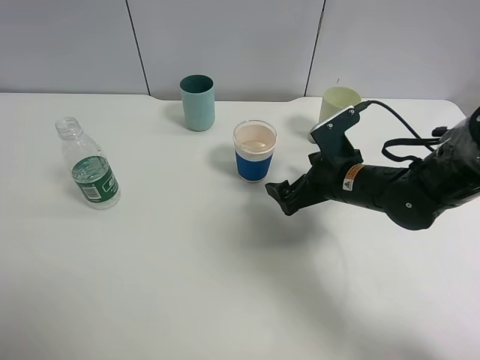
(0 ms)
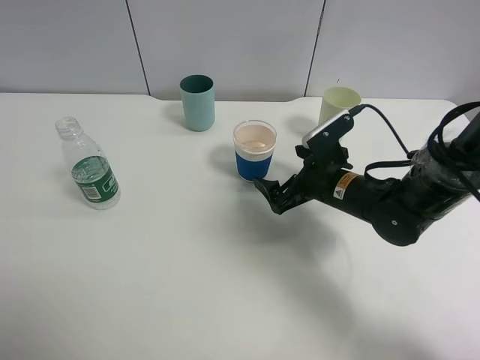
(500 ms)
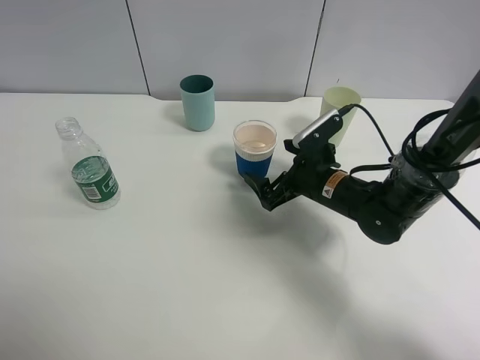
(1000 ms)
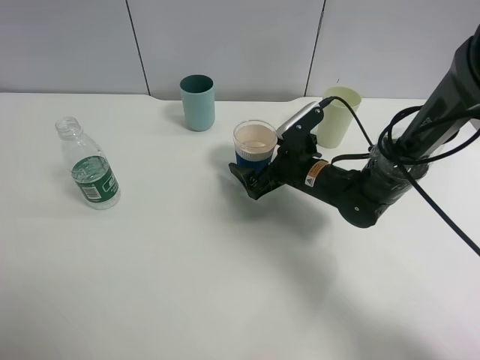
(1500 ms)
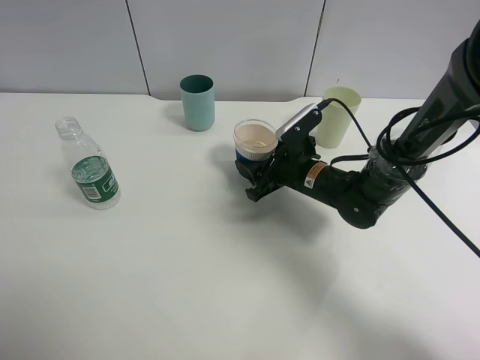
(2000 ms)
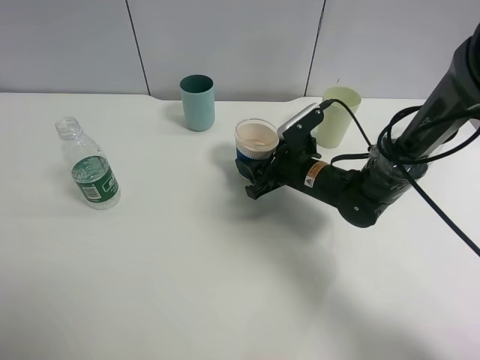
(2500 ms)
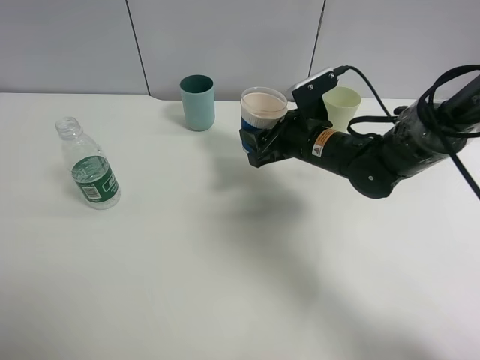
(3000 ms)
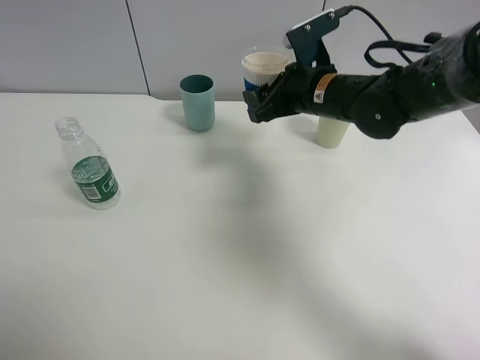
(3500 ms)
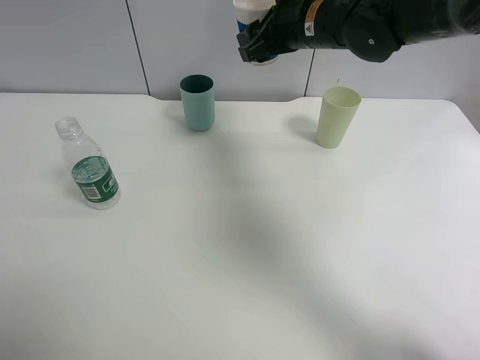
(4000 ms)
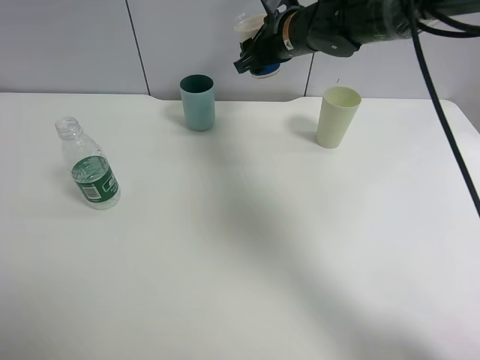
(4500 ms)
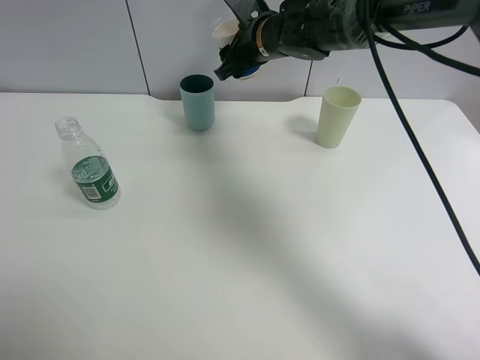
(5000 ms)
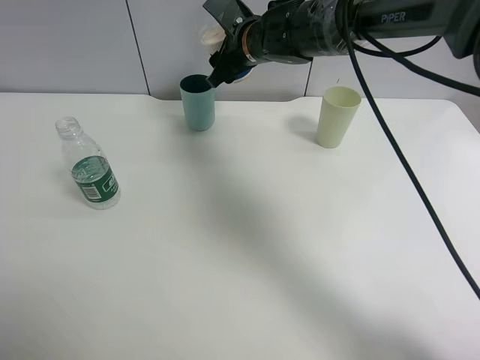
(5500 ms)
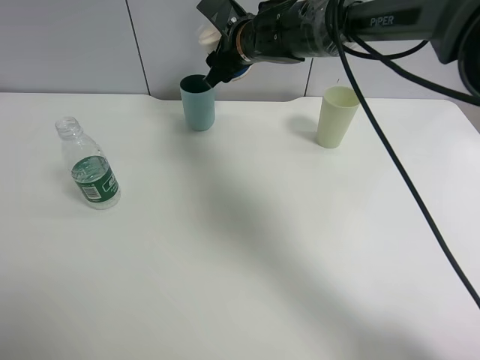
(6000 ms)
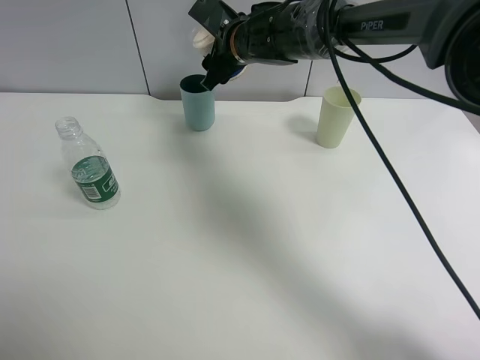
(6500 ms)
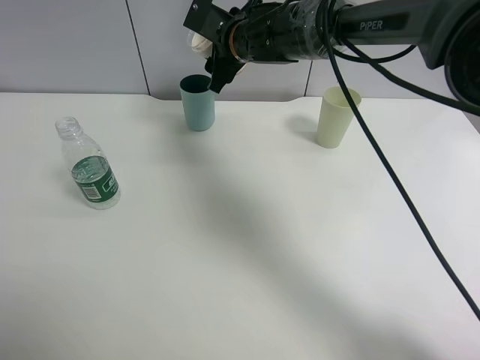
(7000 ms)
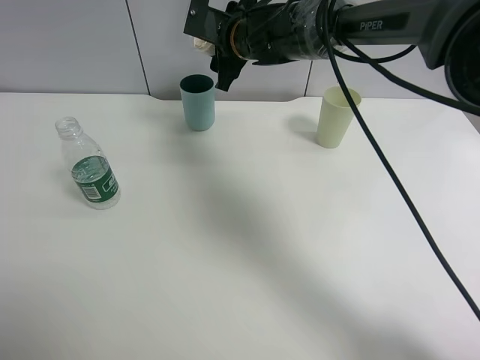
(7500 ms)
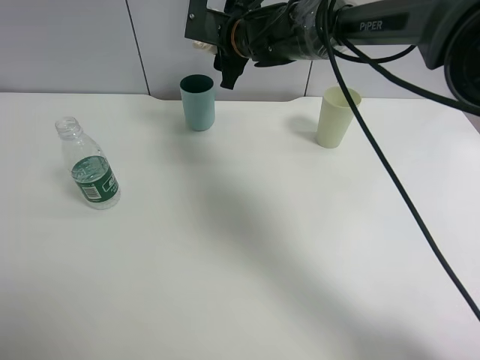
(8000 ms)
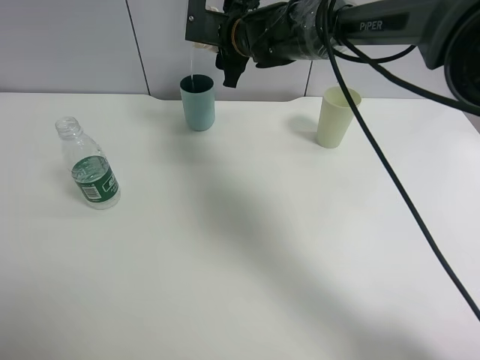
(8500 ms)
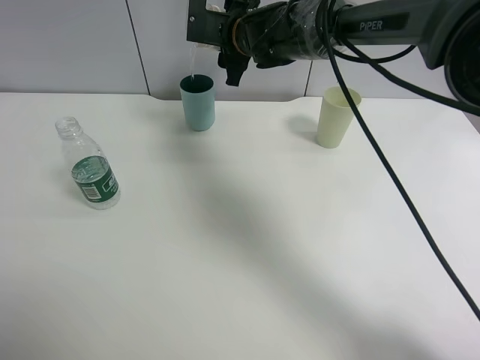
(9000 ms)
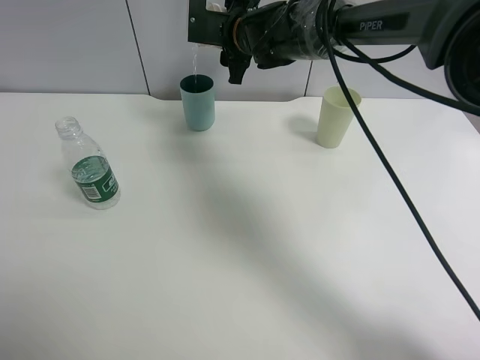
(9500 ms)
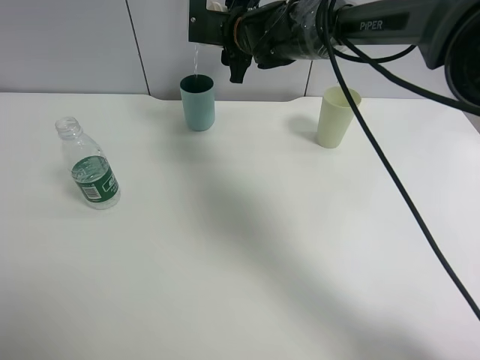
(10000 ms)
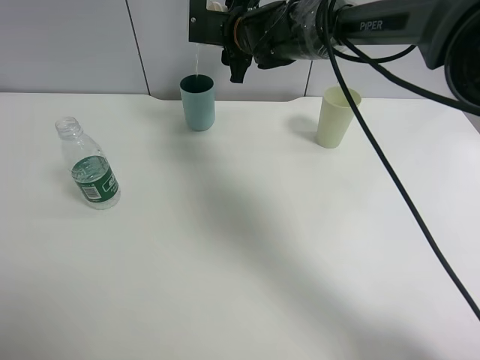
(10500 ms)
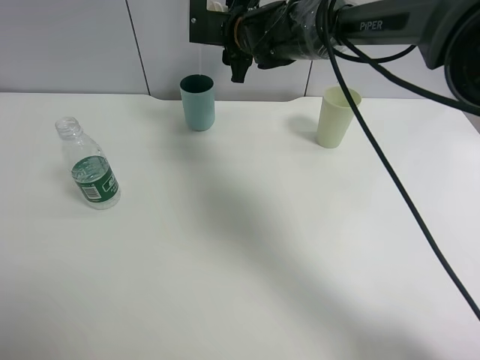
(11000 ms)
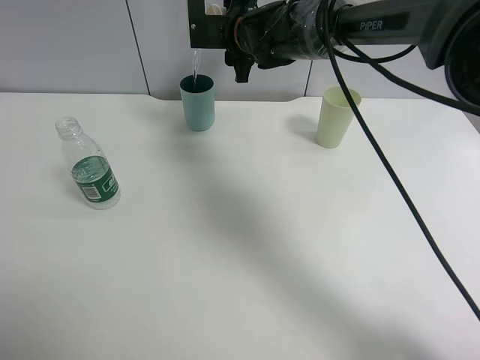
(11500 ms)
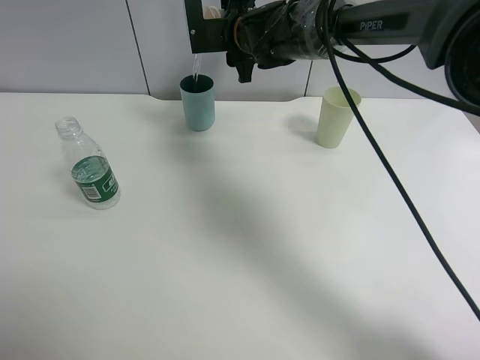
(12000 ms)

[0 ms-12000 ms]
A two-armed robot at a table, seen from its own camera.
Task of the whole recording: use a clamp to hold the bottle of the drink, pour the beverage into a random cup, then clamp the cup containing the drink and pour the drink into another random cup.
Step, 0 ms to 2500 ms: Pick up the paper cup with right gripper.
0 ms to 2000 ms: The right gripper shifts by about 5 cm, and closes up.
2000 ms to 4000 ms: The right gripper shifts about 20 cm upward.
4000 ms to 6000 ms: The right gripper travels to the left by some 10 cm.
8000 ms to 12000 ms: There are only small adjustments of the grippers.

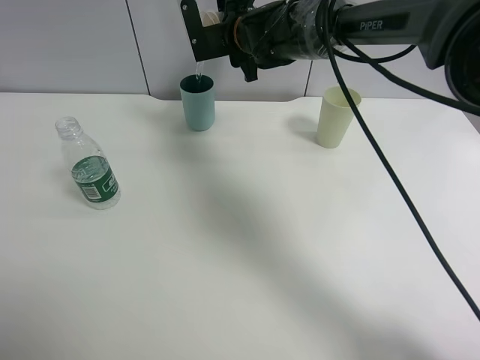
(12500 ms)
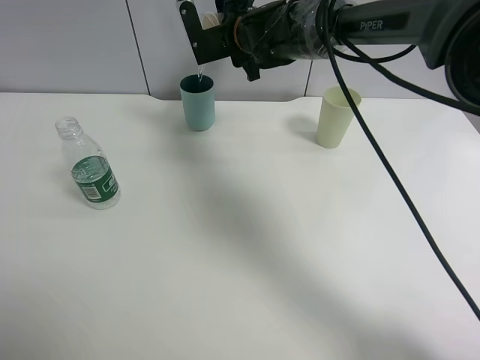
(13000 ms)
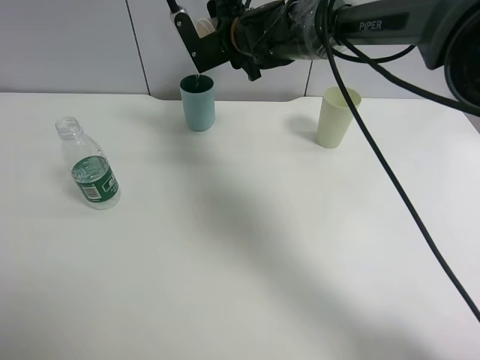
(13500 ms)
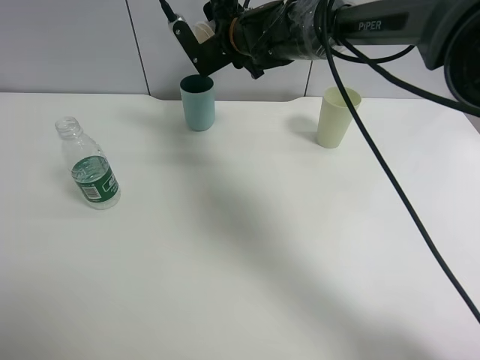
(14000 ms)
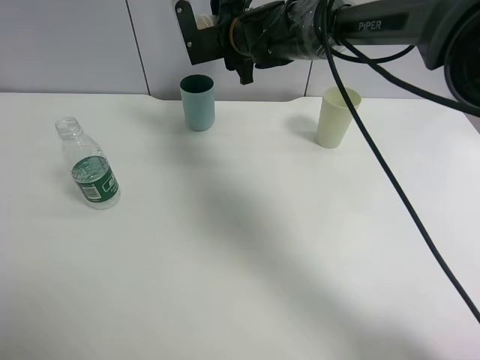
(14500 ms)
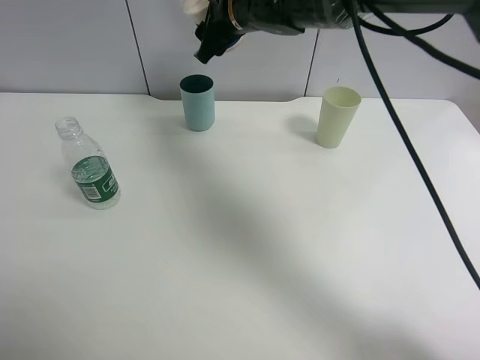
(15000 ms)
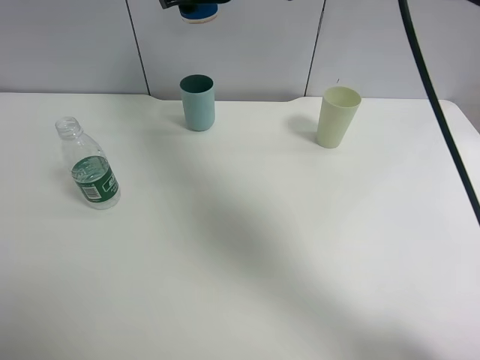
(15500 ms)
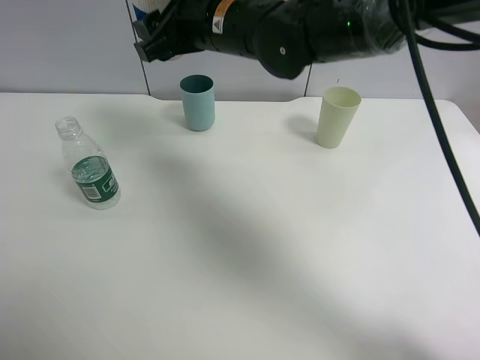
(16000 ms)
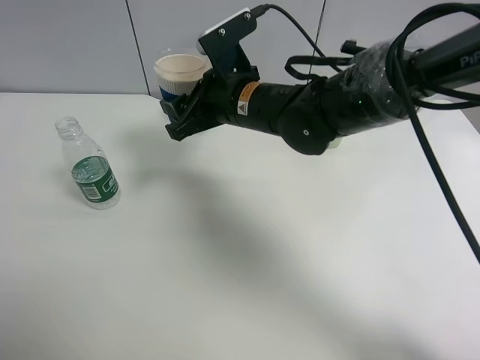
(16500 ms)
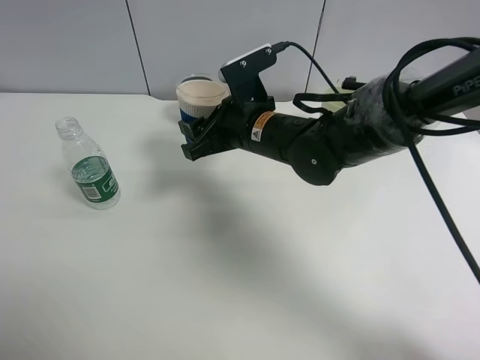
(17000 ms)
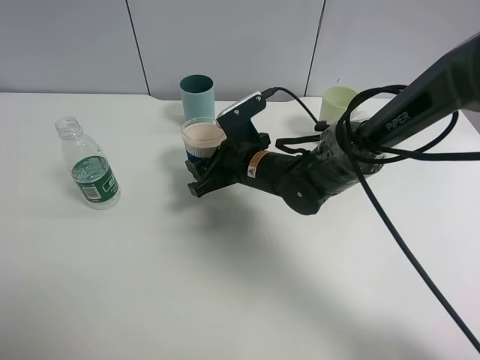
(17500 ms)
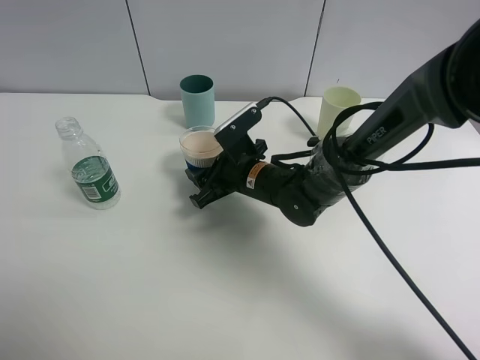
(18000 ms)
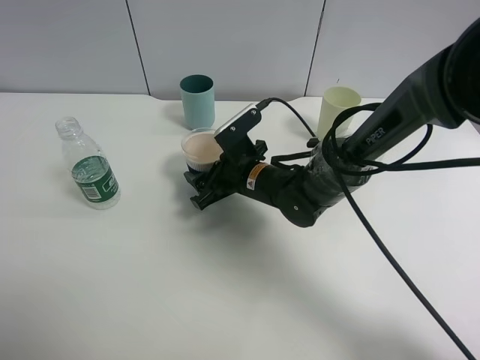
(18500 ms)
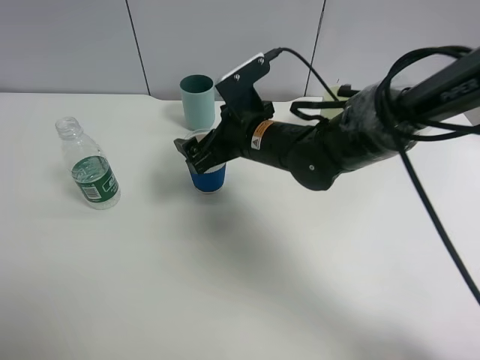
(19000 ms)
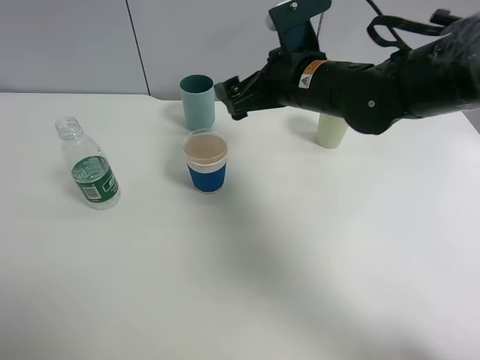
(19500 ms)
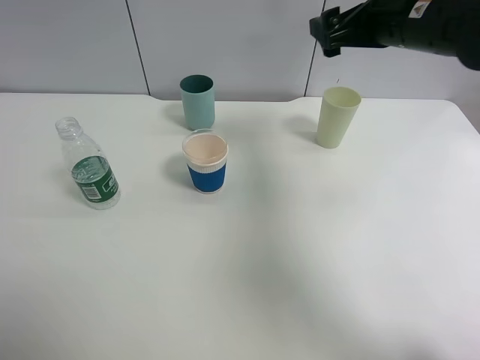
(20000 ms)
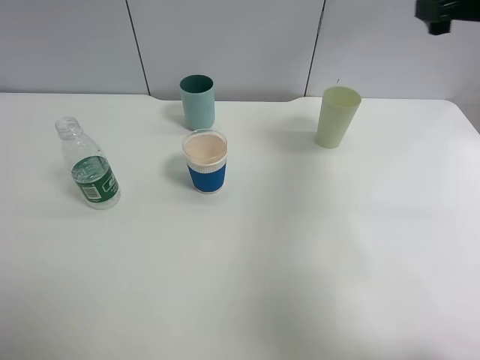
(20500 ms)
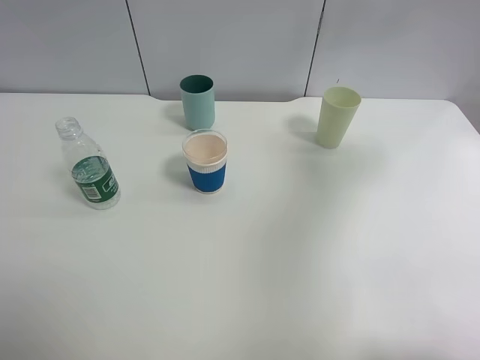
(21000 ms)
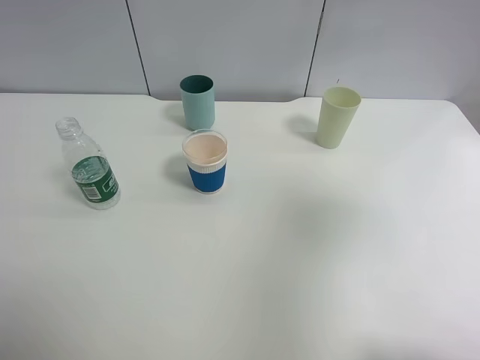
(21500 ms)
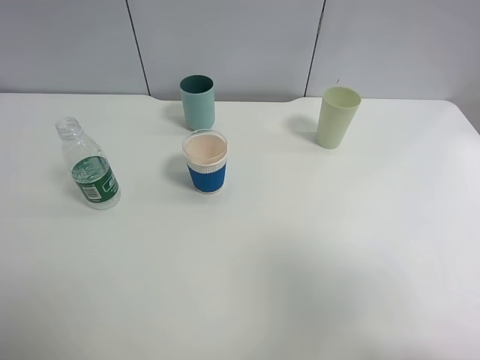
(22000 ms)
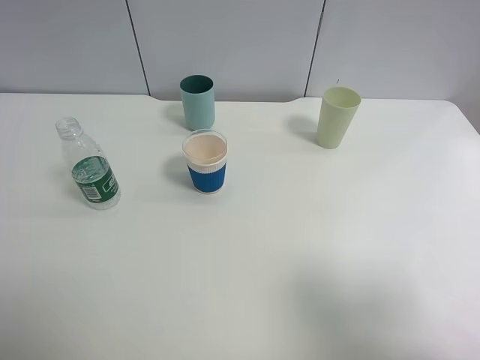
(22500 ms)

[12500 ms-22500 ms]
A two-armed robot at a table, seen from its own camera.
Task of the whole recording: use a clamp to hold the bottle of the drink, pour the beverage into a random cup, then clamp the cup containing the drink and pour the drink into another random cup.
Step, 12500 ms to 14500 ms: Pour water into the blue plastic cup with right gripper.
Step, 15000 ms to 18500 ms: Place the paper cup on the table with right gripper.
12500 ms to 14500 ms: There are only small adjustments of the grippers.
14500 ms to 16500 ms: The right gripper heads backward, covering about 15 cm.
16500 ms to 18500 ms: The right gripper travels downward by roughly 10 cm, and opens its fingers.
18500 ms to 20500 ms: The right gripper shifts approximately 40 cm upward and to the right, and opens its fingers.
20500 ms to 22500 ms: The right gripper is displaced backward by roughly 30 cm.

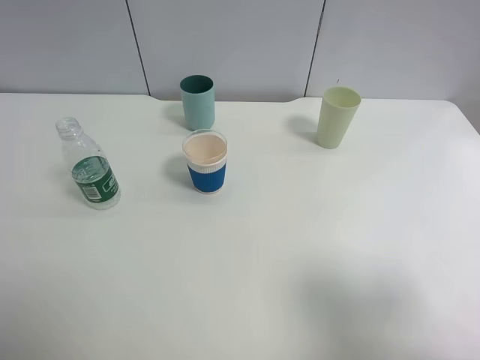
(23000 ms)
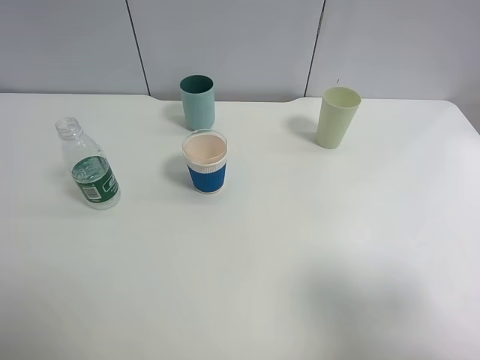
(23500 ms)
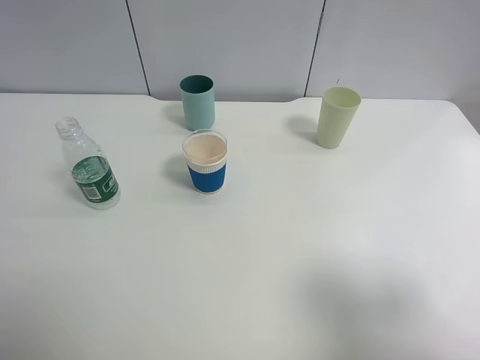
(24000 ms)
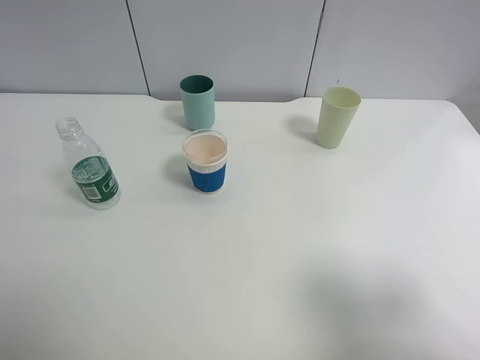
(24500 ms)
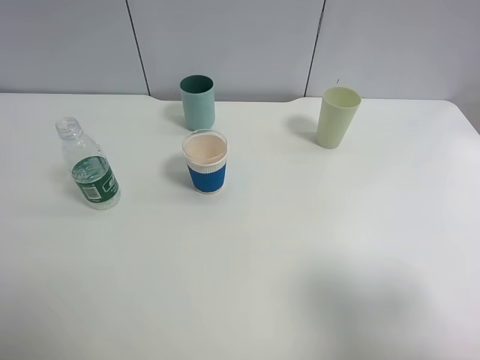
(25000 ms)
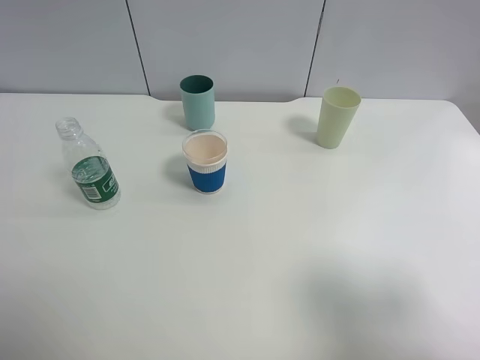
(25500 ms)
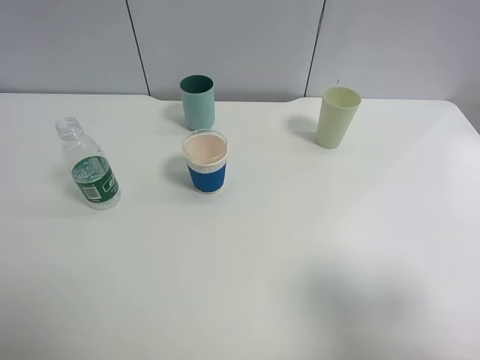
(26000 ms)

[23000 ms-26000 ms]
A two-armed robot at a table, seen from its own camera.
Task of the whole recording: use a clamp to hold the bottle of the drink, pour the beverage into a random cup, then clamp the cup containing the drink and pour the drink into another random cup.
23000 ms to 26000 ms: The two grippers keep their place.
